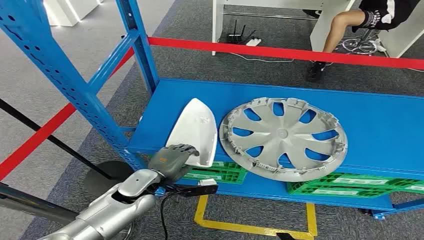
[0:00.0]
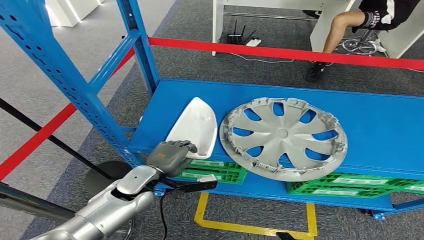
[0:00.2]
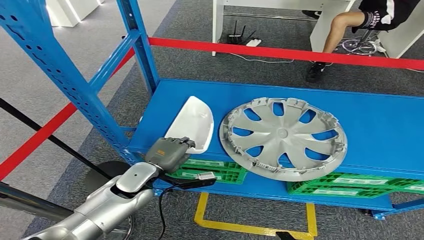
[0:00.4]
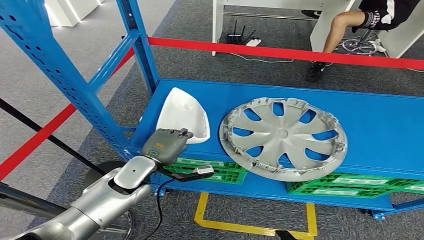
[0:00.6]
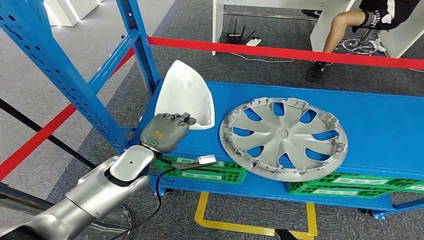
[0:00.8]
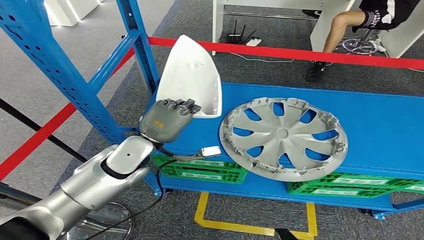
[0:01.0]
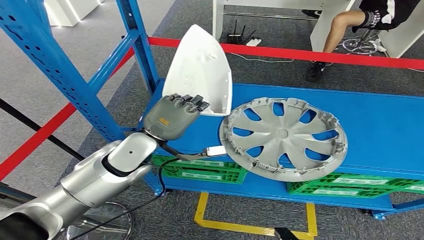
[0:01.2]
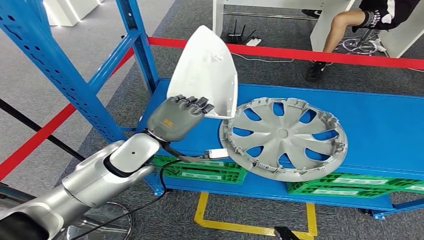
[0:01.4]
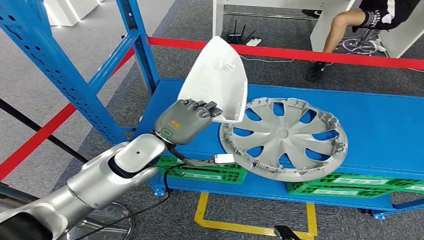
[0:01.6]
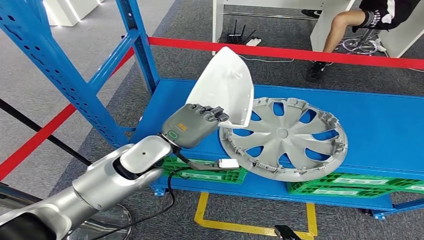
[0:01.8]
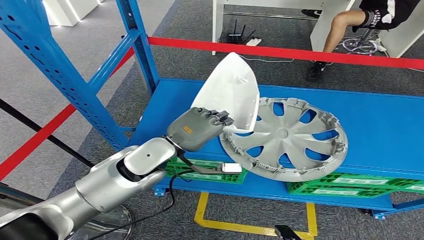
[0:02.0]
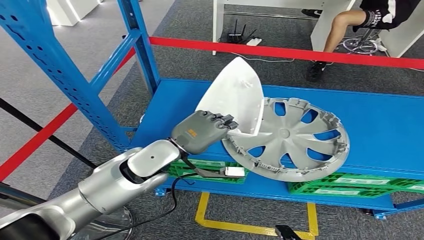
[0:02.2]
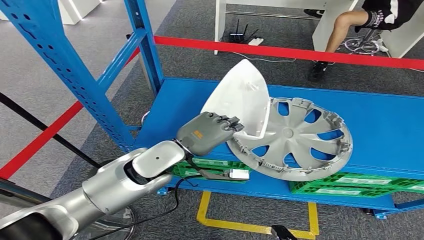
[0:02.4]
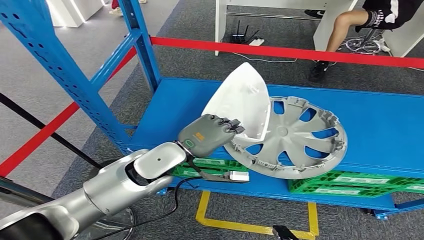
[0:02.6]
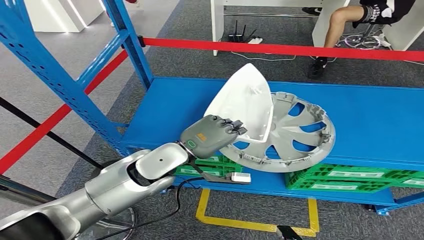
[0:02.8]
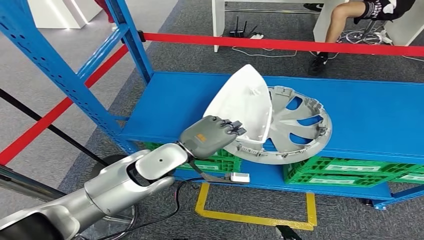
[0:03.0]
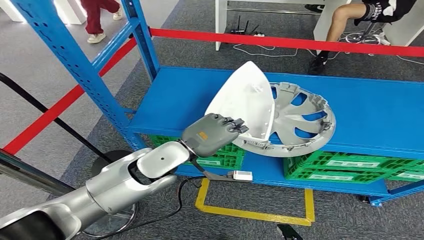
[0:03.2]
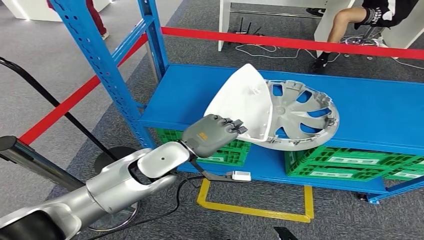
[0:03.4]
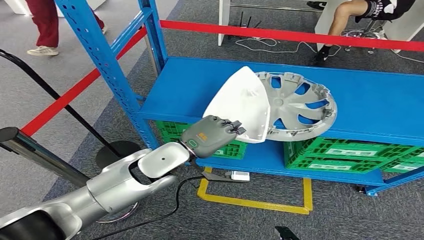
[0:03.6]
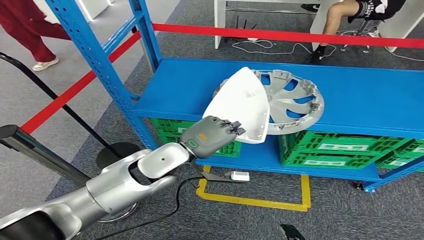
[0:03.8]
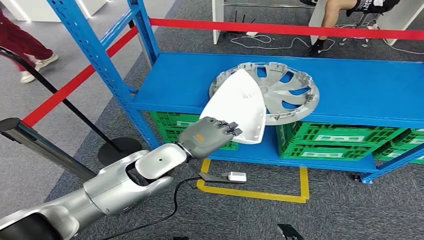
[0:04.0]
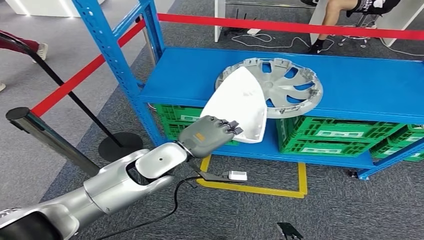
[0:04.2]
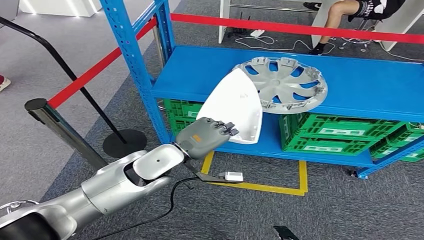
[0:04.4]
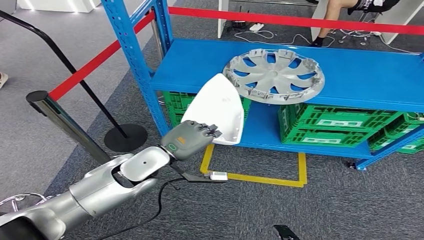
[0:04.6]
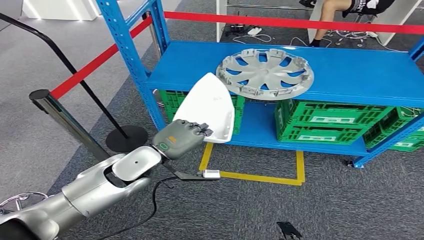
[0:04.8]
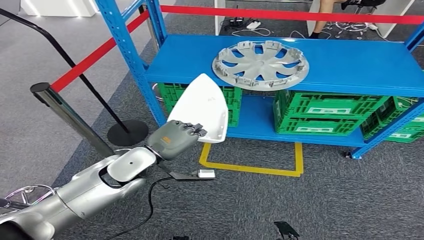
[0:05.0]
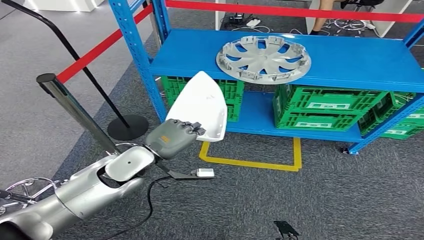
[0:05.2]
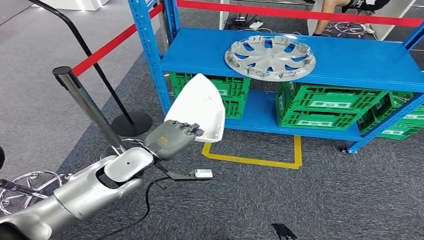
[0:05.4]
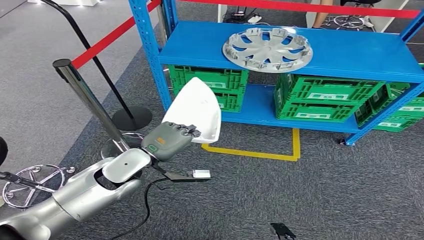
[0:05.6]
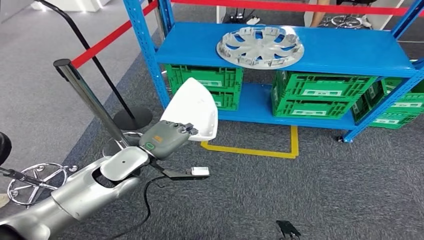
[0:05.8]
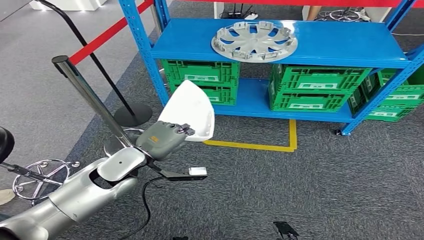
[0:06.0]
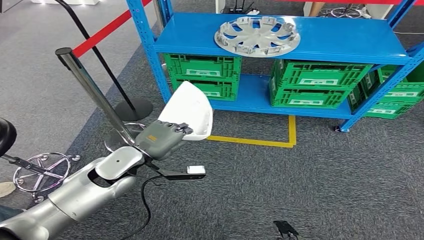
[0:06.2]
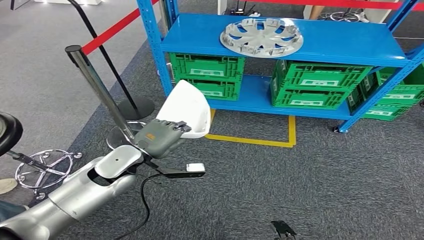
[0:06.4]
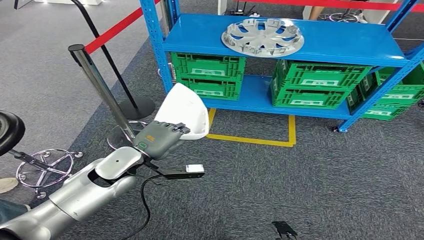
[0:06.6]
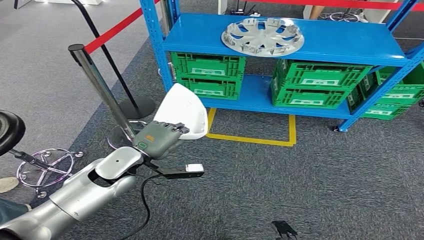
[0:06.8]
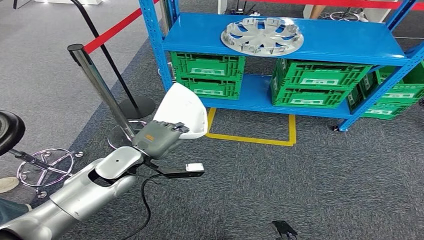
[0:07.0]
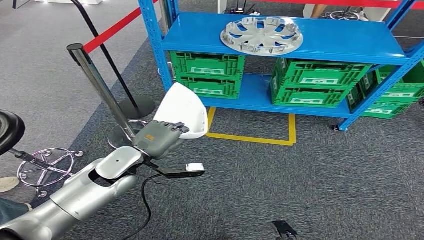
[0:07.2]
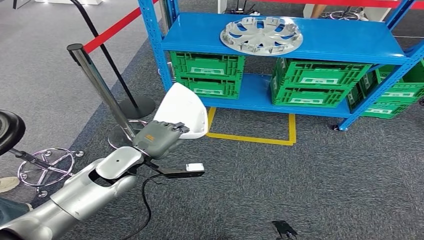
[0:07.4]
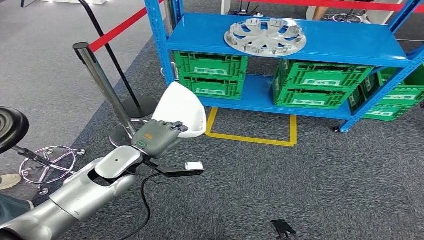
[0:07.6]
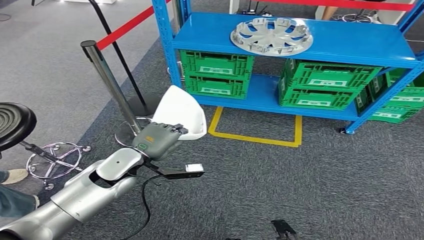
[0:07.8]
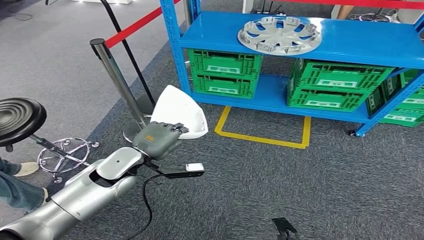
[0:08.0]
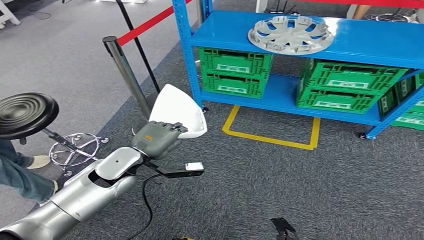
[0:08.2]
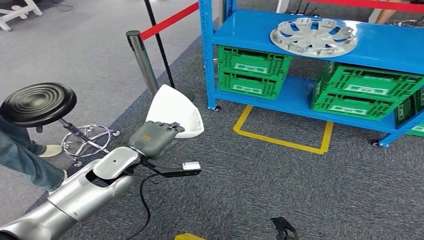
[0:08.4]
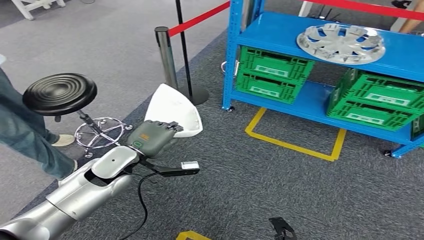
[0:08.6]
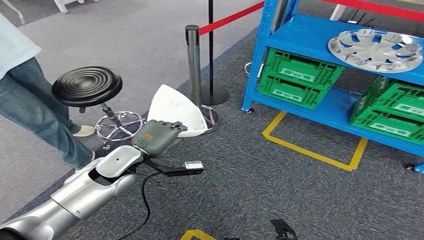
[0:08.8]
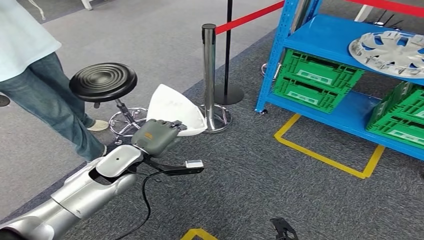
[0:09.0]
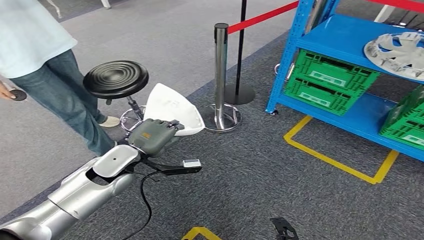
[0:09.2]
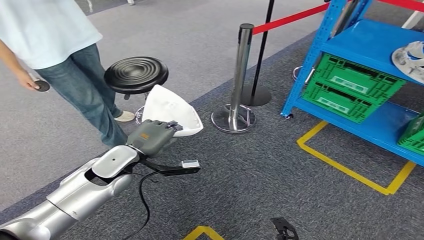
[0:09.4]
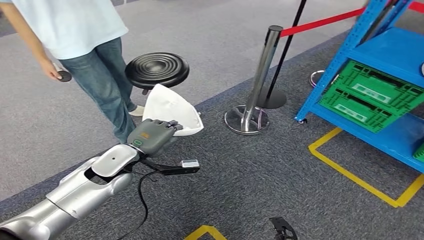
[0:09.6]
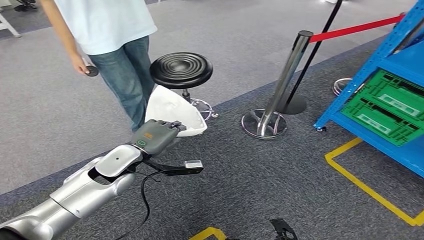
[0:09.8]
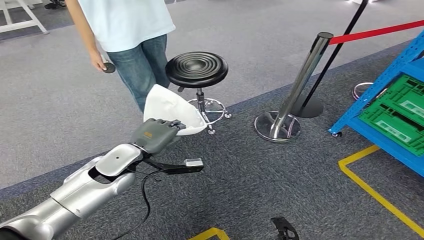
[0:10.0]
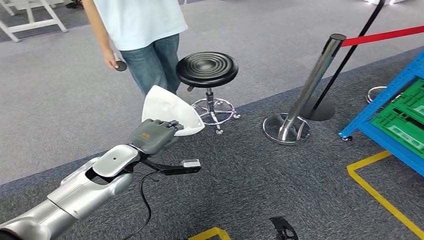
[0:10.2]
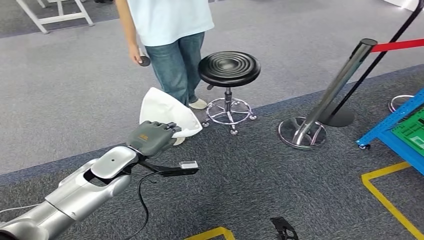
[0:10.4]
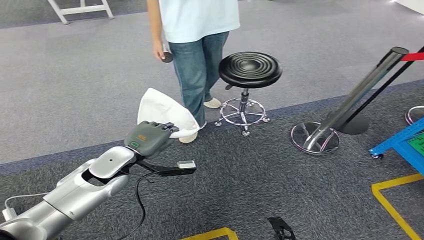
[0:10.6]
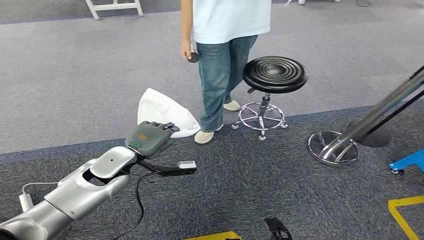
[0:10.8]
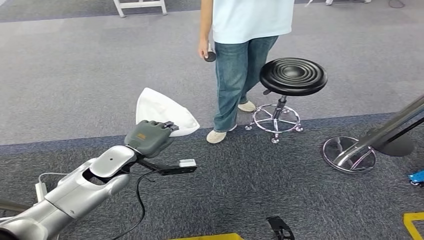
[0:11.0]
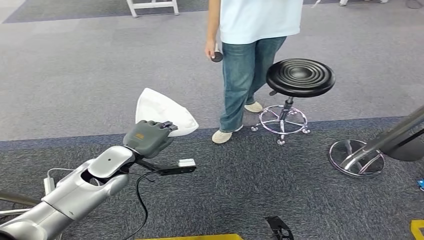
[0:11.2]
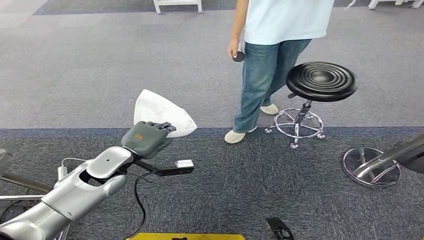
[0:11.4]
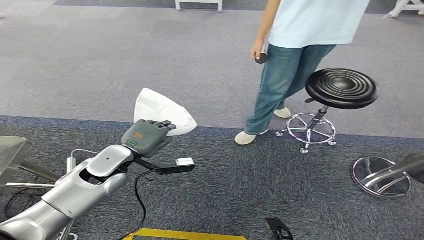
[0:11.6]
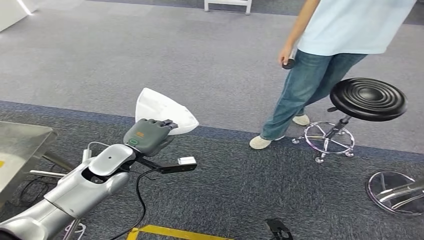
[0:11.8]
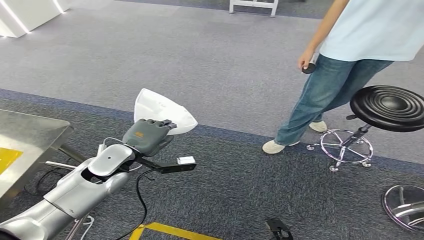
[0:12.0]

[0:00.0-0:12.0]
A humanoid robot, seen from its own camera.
Step, 0:00.0 to 0:02.2: Pick up the small parts from the shelf.

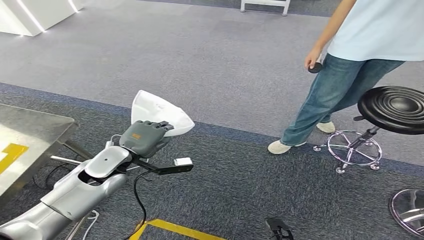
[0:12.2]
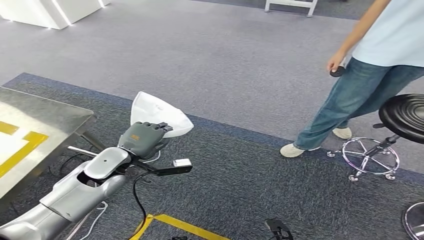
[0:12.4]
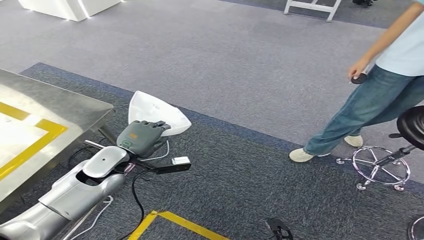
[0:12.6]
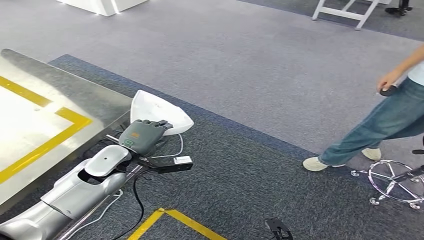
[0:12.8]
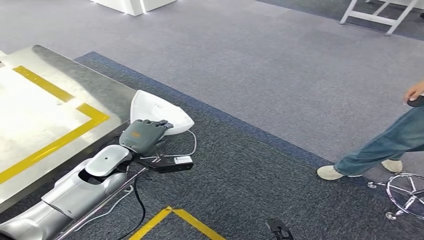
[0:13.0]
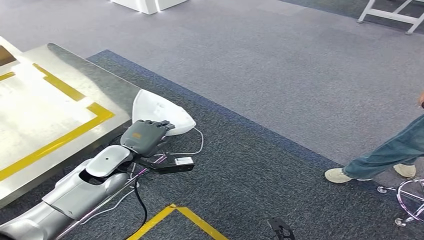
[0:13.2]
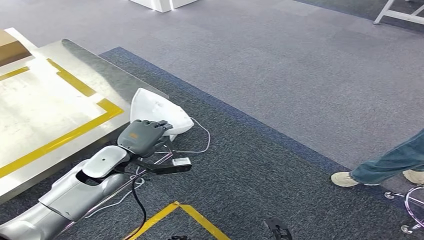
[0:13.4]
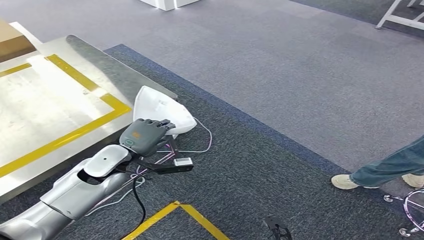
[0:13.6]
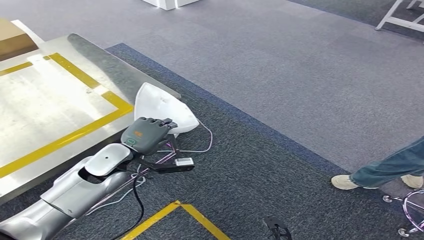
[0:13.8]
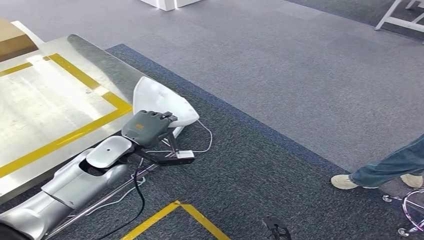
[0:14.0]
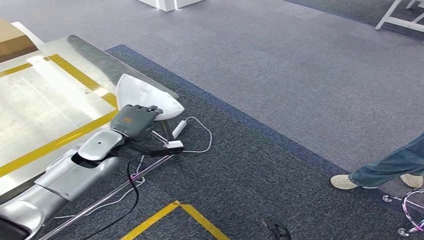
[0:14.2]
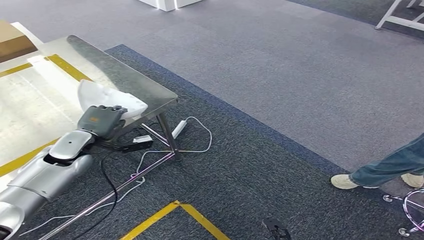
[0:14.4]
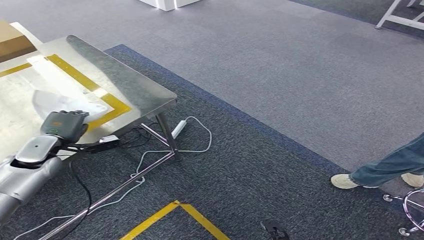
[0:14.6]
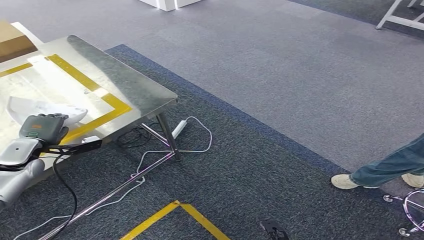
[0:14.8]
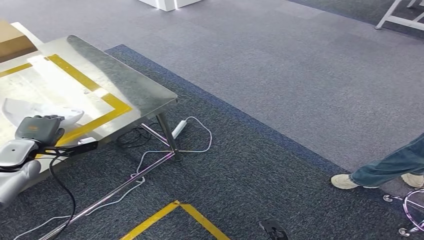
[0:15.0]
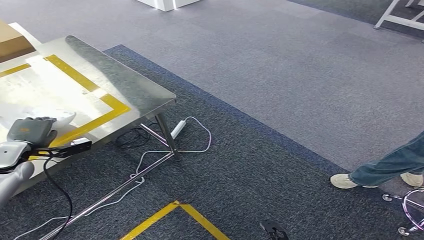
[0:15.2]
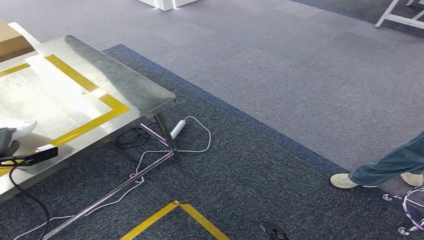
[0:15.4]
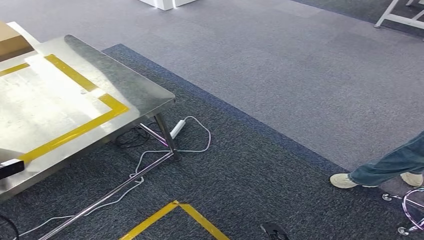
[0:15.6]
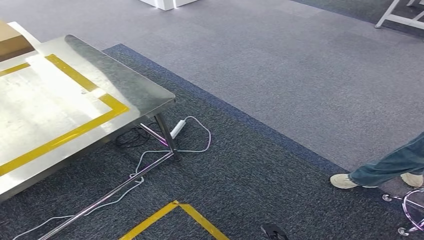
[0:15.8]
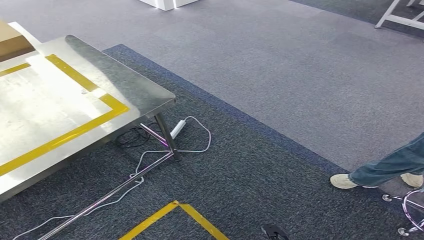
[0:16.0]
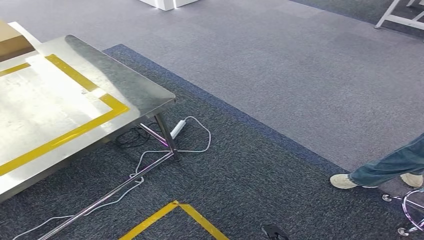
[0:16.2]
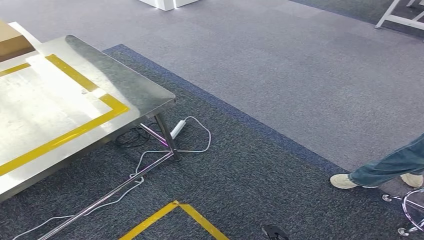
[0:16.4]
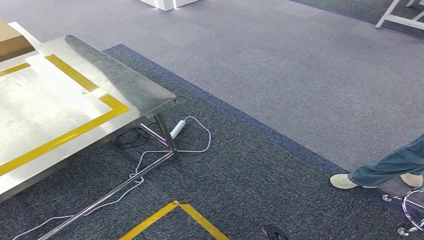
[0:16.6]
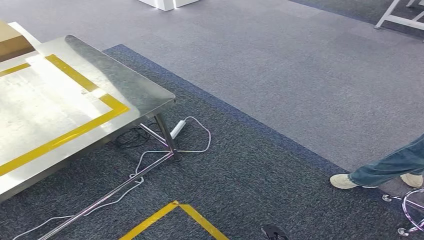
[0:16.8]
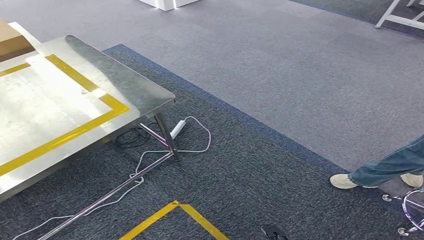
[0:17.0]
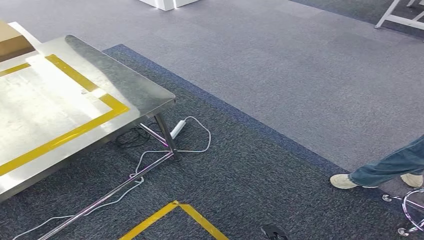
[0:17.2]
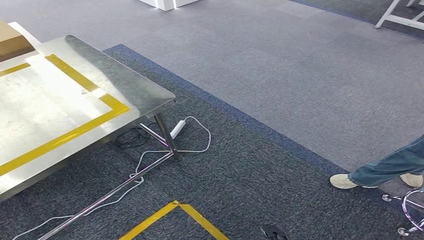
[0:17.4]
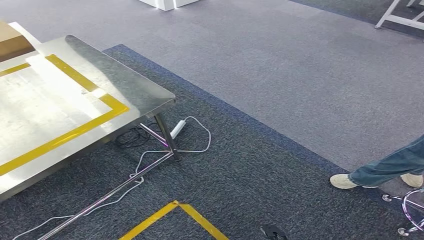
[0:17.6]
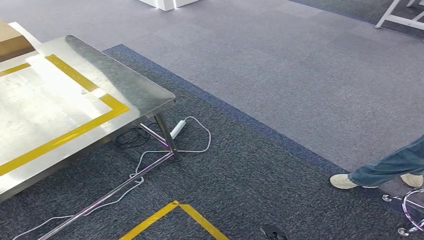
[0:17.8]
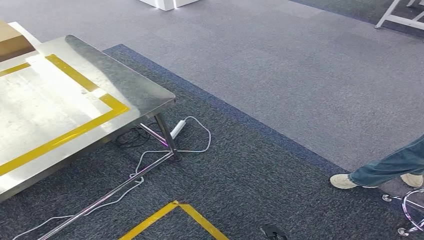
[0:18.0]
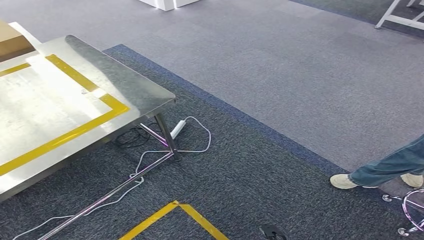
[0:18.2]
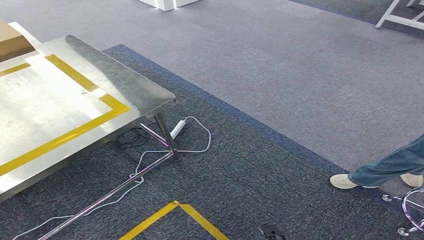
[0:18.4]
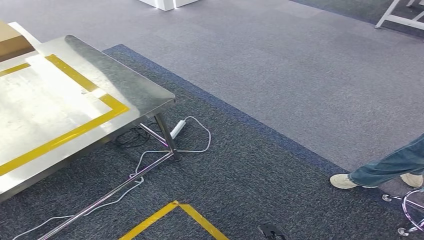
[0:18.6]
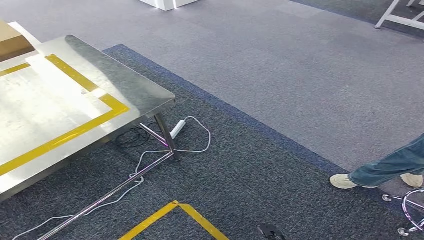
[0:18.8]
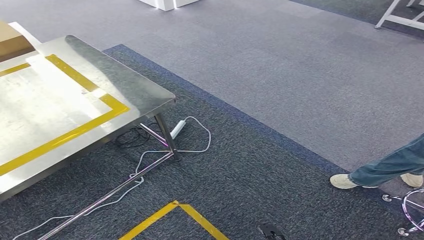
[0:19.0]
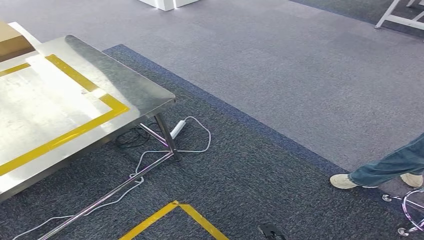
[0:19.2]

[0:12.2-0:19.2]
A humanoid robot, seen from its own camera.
Step, 0:12.2 to 0:17.8: Move the small parts to the workbench.
0:13.6 to 0:15.0: The left hand goes some 25 cm to the left.
0:15.0 to 0:16.4: The left hand is displaced to the left and backward by approximately 35 cm.
